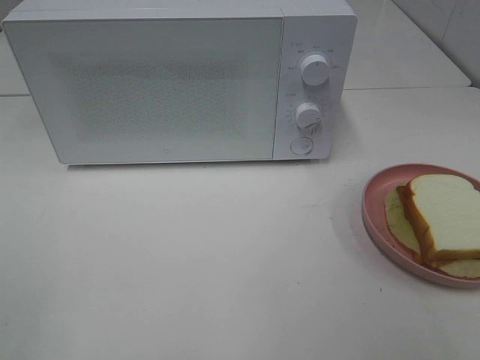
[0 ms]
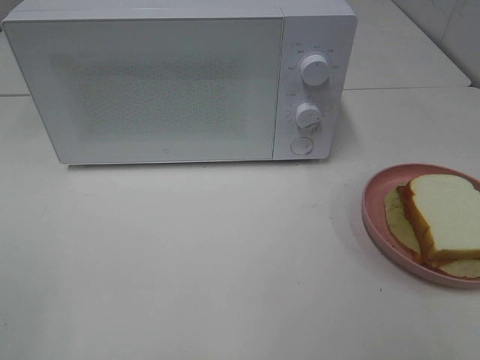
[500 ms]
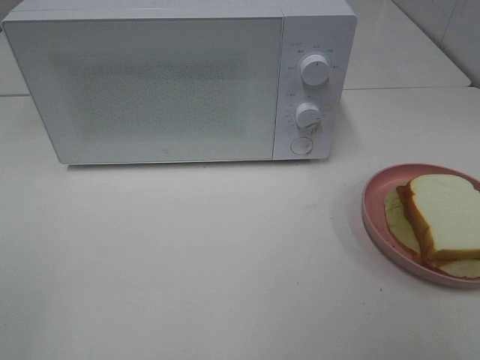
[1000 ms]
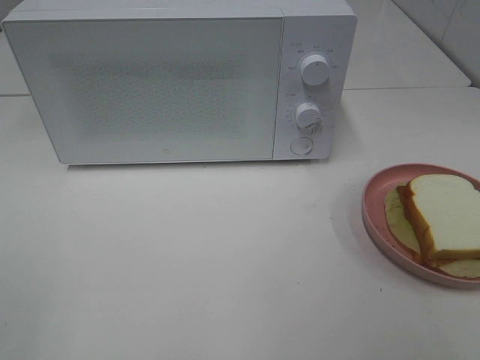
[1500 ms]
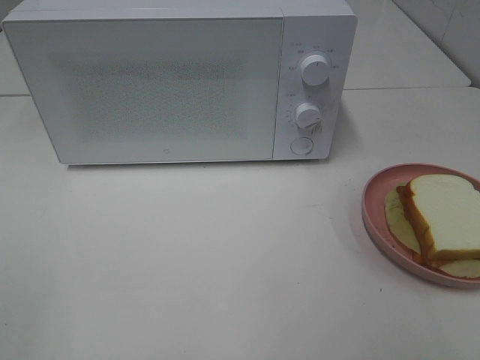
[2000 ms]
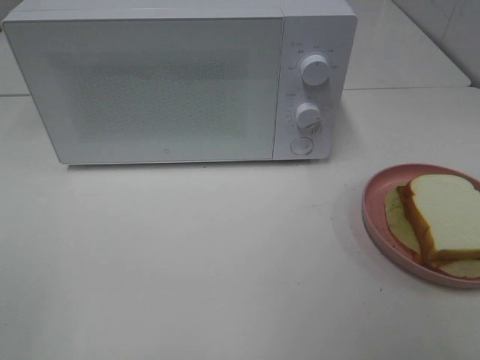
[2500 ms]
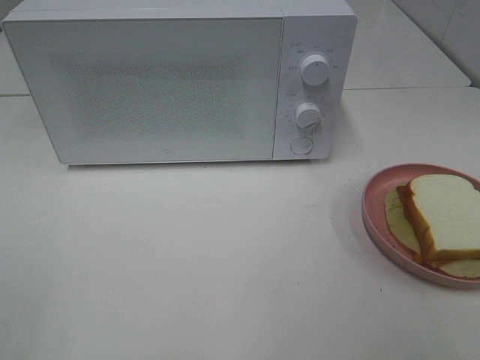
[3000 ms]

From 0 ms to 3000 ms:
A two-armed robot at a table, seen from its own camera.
Task of the whole recording: Heat Sandwich.
From 0 ms to 3000 ms: Neither gripper changes place.
